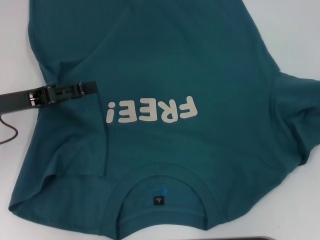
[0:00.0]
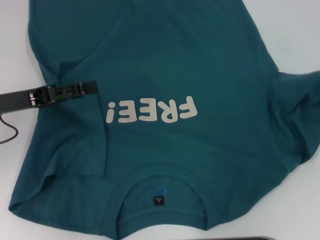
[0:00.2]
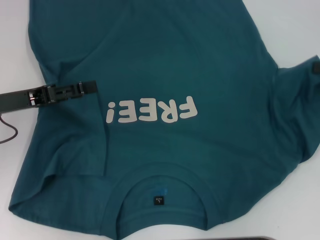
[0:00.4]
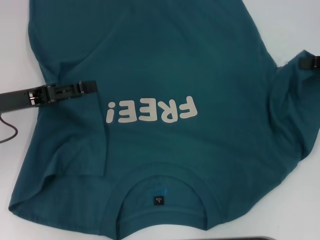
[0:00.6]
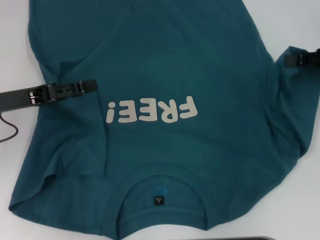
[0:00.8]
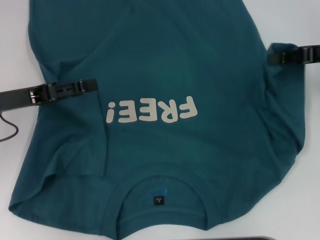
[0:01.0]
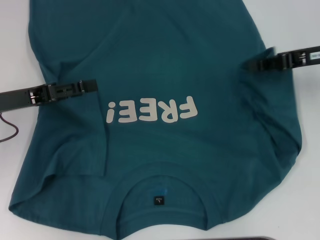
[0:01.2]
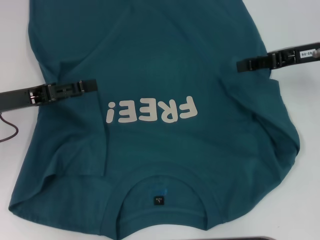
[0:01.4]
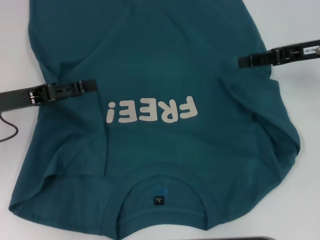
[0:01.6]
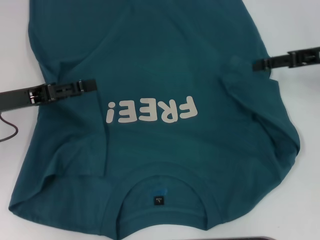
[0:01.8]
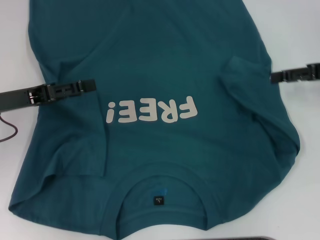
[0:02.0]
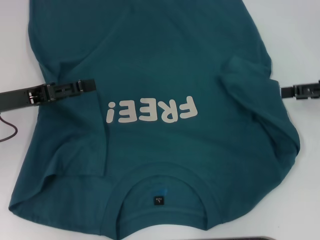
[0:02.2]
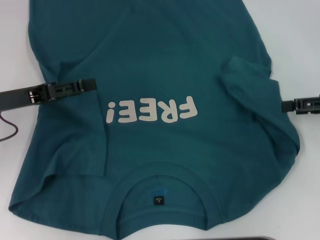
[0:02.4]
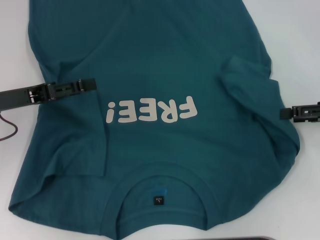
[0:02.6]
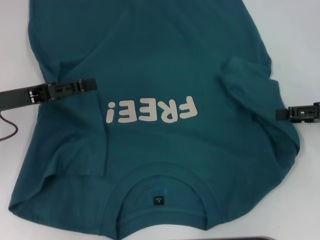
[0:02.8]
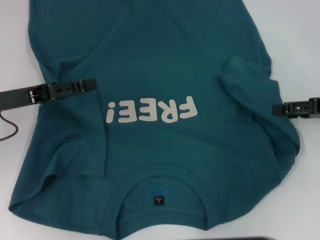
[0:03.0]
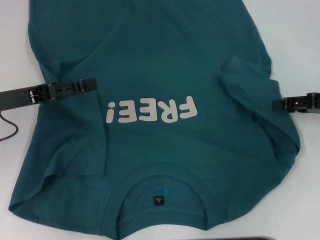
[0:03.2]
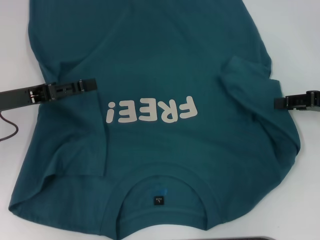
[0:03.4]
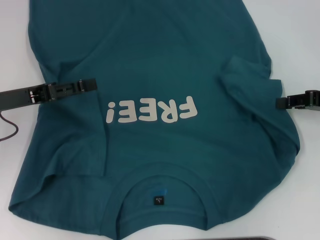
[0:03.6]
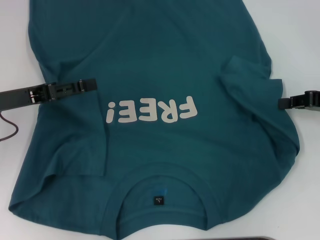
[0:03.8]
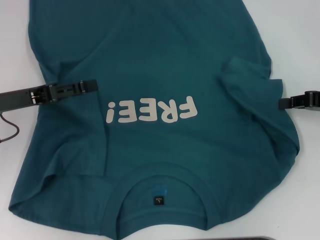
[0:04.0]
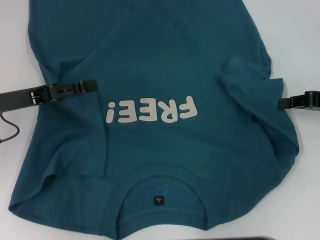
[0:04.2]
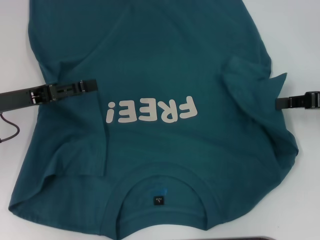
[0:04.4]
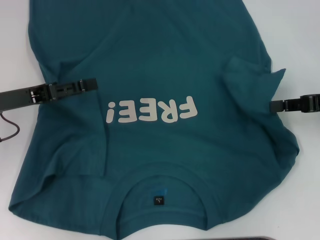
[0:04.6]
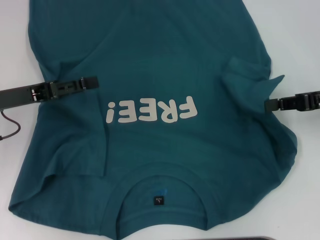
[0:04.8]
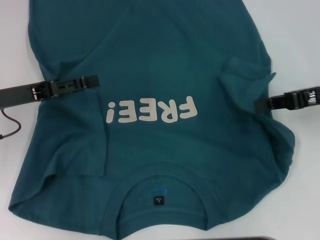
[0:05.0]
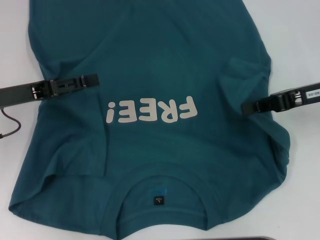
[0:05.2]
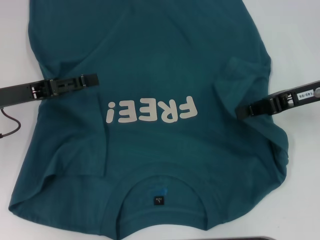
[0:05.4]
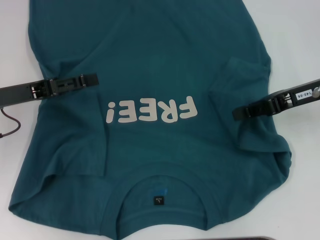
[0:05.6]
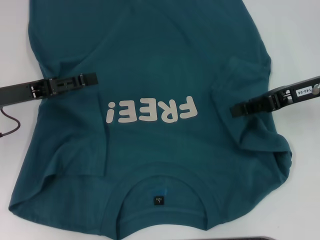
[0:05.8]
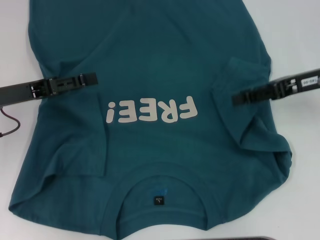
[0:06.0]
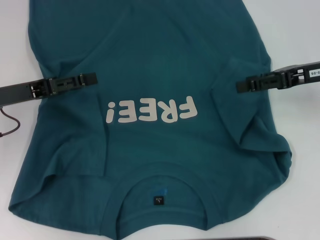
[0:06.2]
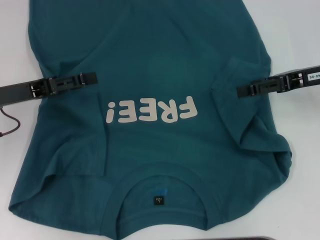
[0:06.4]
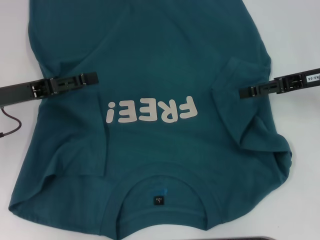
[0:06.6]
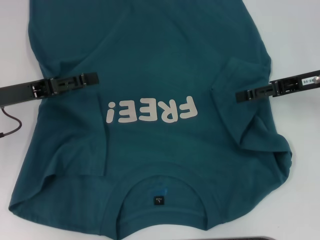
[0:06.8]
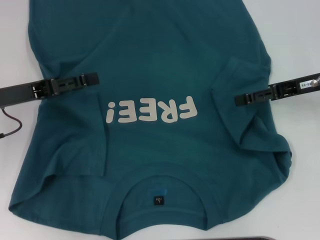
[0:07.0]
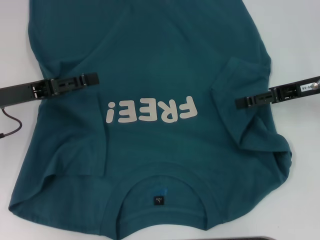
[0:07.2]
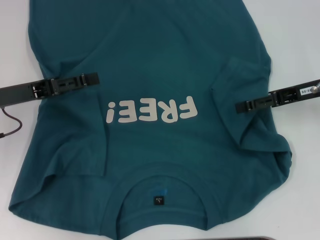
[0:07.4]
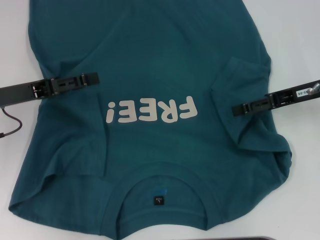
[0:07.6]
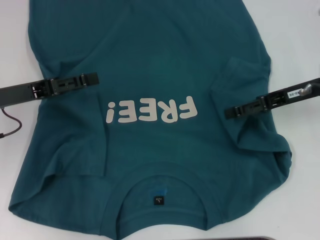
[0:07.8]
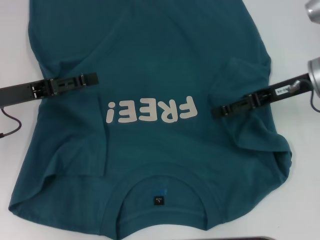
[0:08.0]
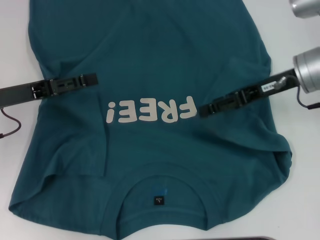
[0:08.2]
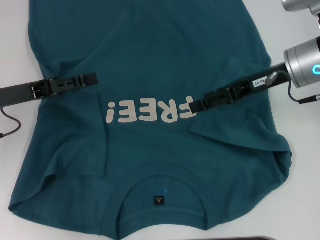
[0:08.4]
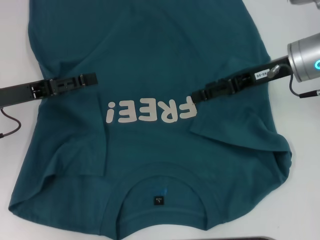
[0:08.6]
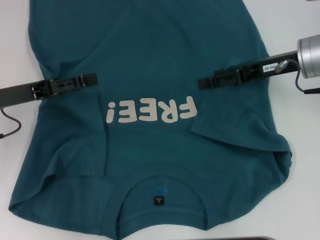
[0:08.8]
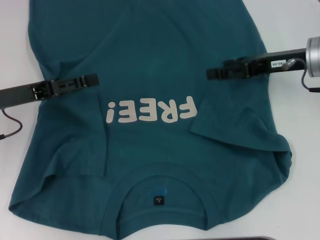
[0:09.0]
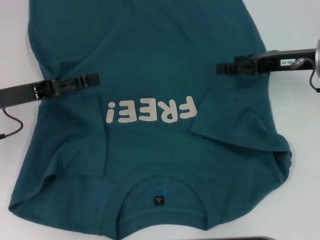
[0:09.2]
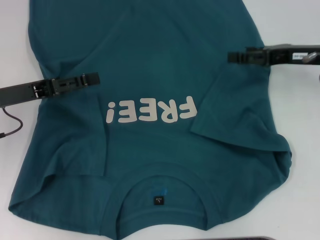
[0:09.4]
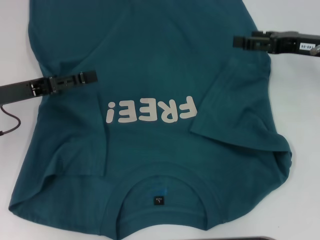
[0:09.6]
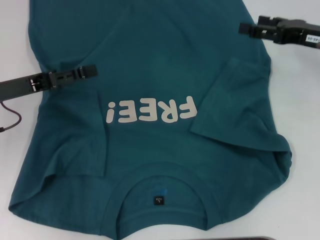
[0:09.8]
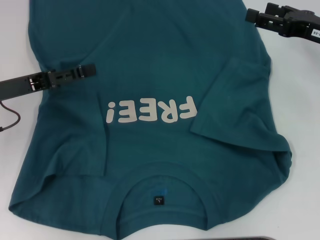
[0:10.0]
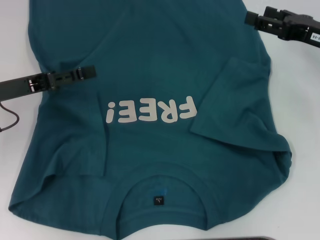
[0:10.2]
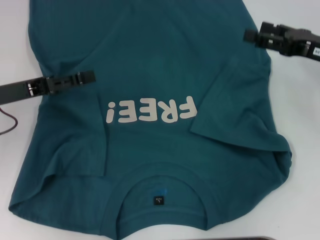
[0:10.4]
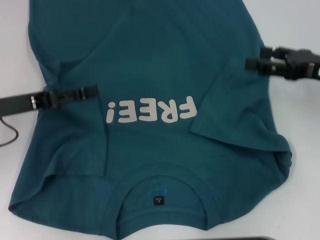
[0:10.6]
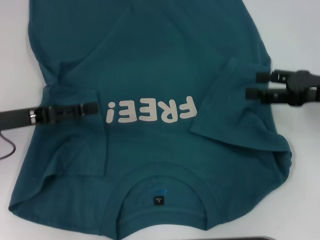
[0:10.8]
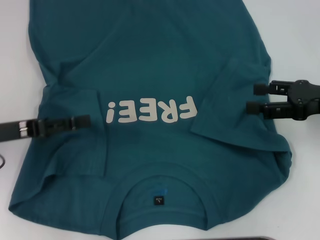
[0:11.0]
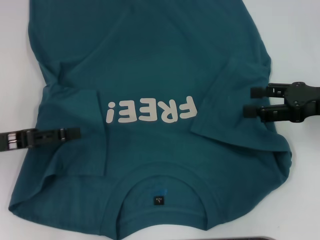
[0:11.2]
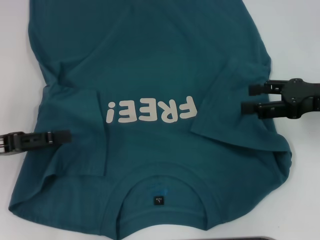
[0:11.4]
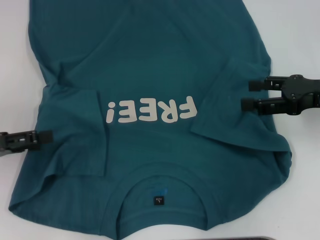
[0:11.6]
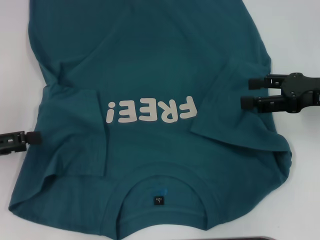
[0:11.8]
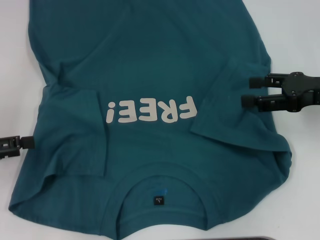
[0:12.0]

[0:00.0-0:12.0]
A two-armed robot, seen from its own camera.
Step, 0:00.0 to 0:09.0: Fold the bottom right sleeve to the right.
0:00.0 to 0:01.6: The right gripper moves to the left and forward, some 15 cm.
0:01.6 to 0:03.0: The right gripper shifts about 10 cm backward, to the right and downward, and opens its fingers.
0:03.0 to 0:04.4: The right gripper closes.
0:04.4 to 0:06.0: The right gripper travels to the left by approximately 5 cm, and opens.
0:06.0 to 0:07.6: The right gripper opens up.
0:09.0 to 0:10.4: The right gripper moves some 5 cm.
0:10.4 to 0:12.0: The left gripper travels to the left and backward by some 10 cm.

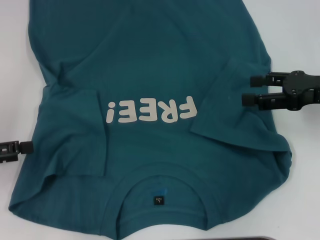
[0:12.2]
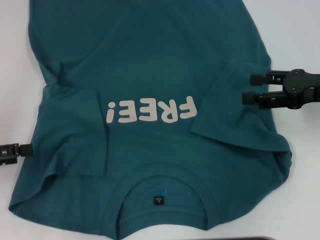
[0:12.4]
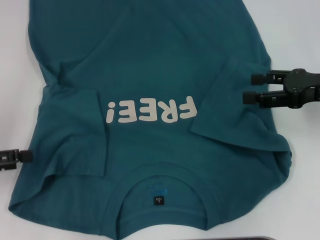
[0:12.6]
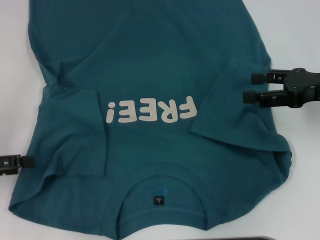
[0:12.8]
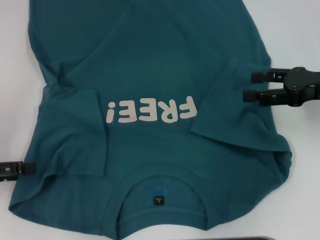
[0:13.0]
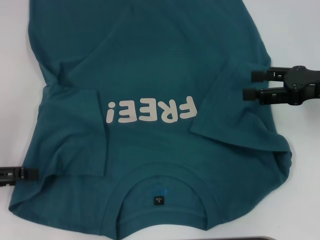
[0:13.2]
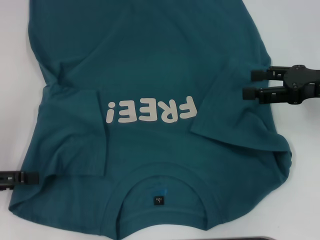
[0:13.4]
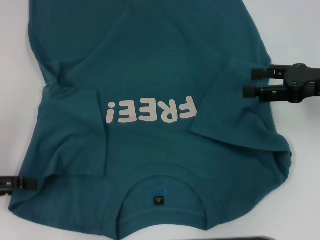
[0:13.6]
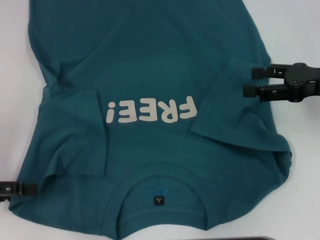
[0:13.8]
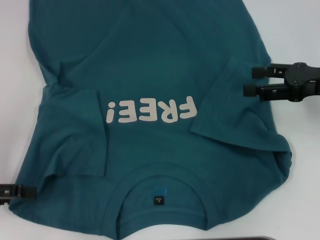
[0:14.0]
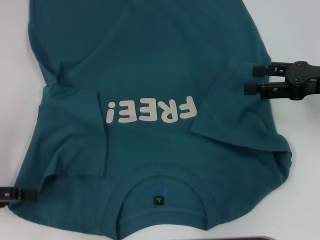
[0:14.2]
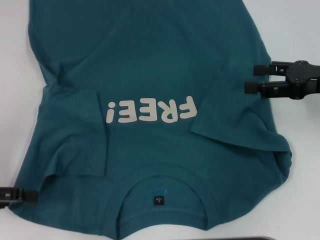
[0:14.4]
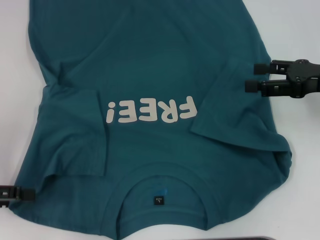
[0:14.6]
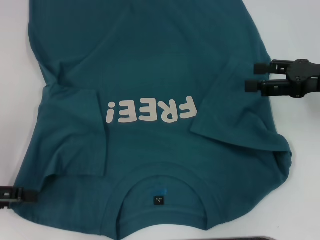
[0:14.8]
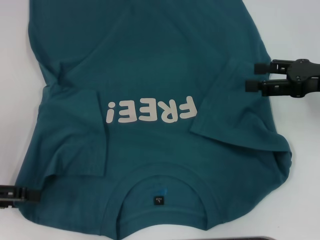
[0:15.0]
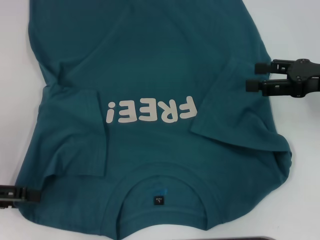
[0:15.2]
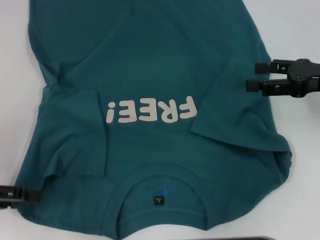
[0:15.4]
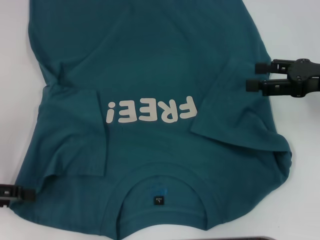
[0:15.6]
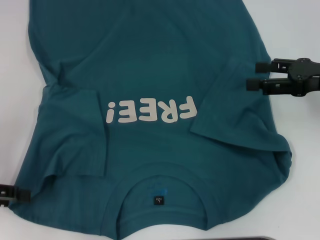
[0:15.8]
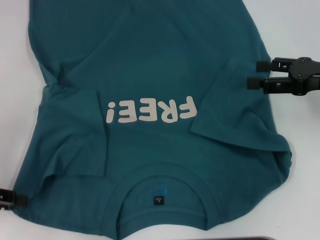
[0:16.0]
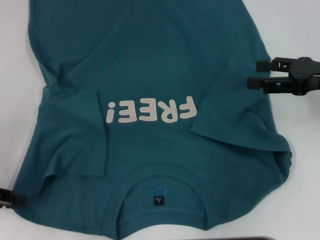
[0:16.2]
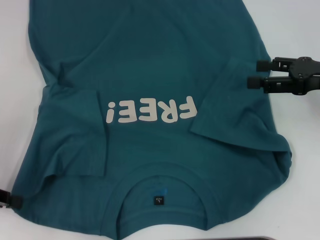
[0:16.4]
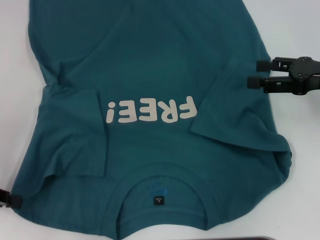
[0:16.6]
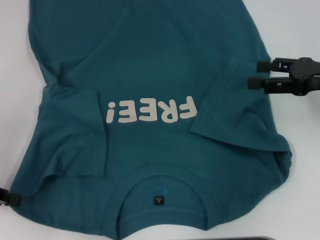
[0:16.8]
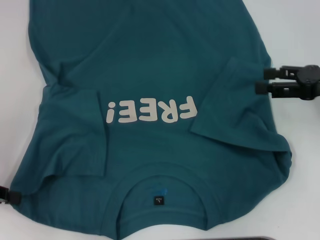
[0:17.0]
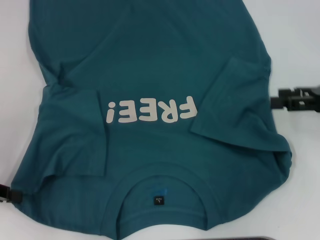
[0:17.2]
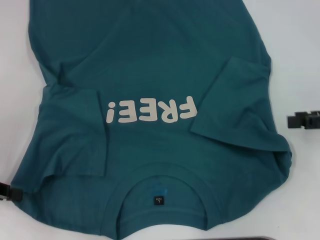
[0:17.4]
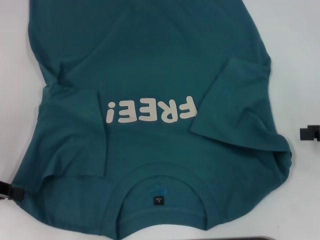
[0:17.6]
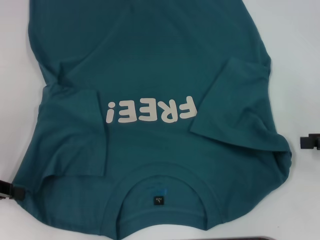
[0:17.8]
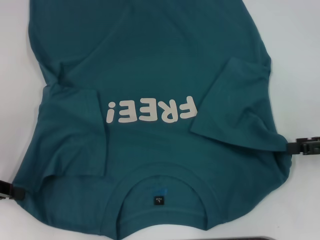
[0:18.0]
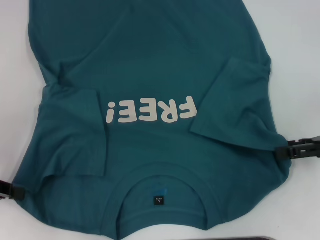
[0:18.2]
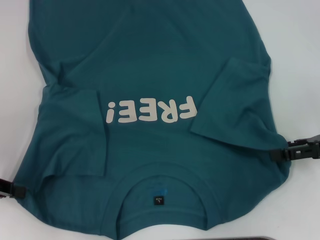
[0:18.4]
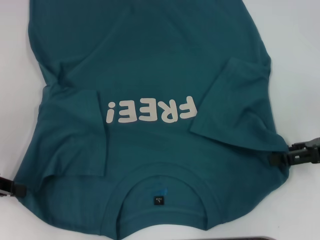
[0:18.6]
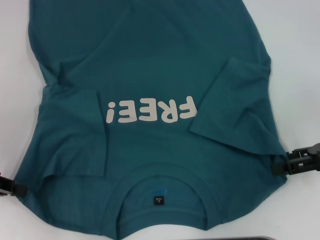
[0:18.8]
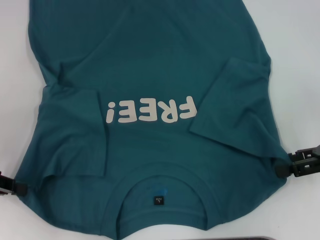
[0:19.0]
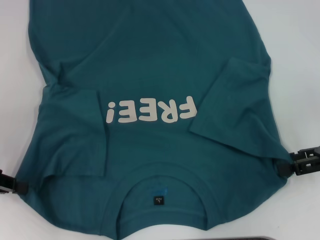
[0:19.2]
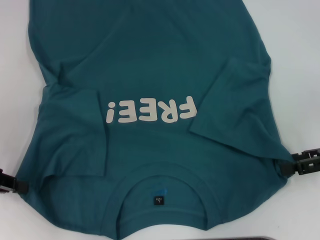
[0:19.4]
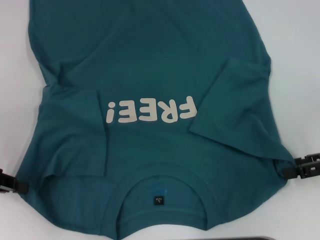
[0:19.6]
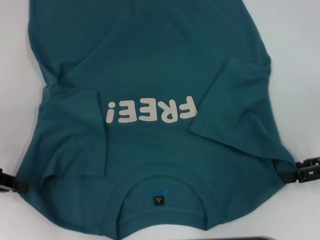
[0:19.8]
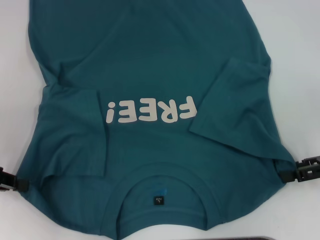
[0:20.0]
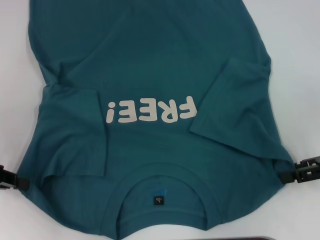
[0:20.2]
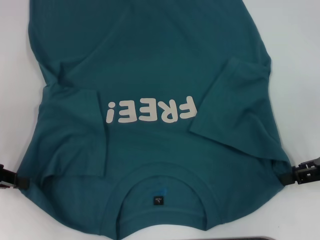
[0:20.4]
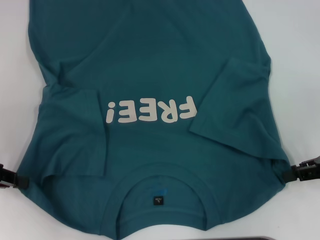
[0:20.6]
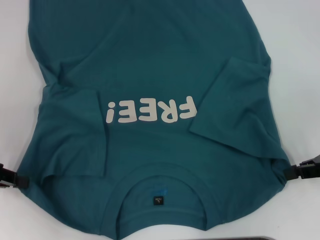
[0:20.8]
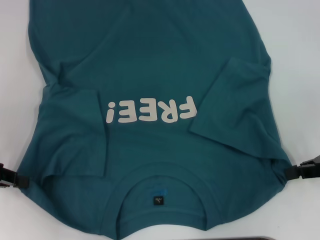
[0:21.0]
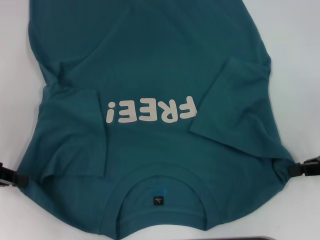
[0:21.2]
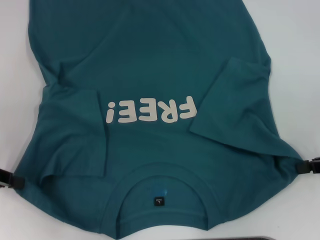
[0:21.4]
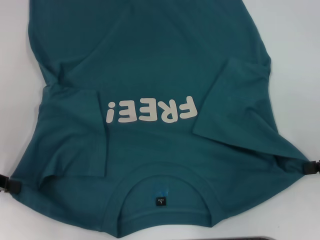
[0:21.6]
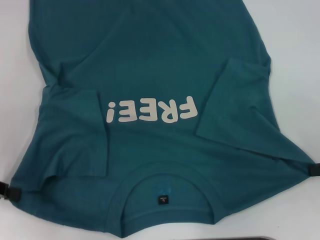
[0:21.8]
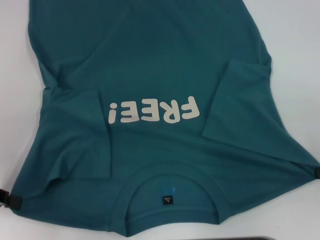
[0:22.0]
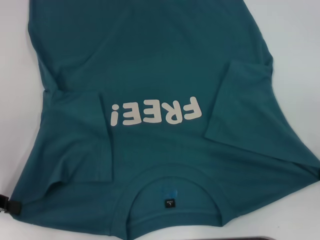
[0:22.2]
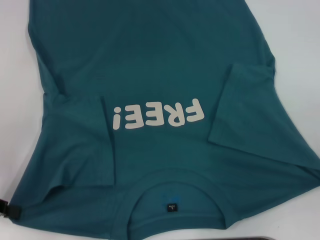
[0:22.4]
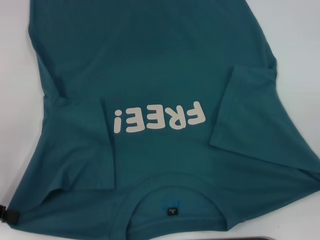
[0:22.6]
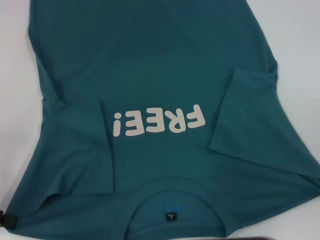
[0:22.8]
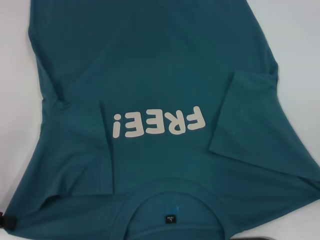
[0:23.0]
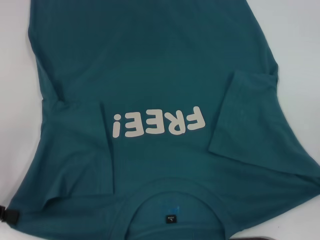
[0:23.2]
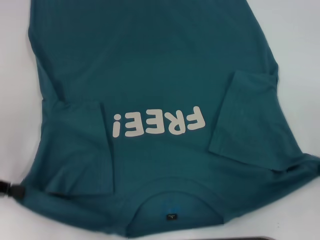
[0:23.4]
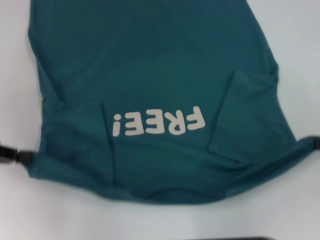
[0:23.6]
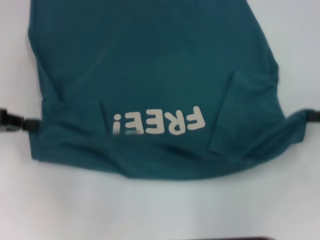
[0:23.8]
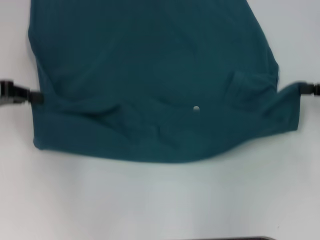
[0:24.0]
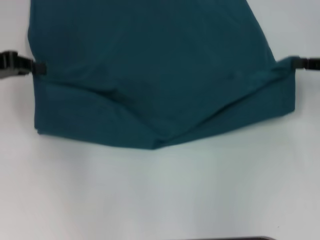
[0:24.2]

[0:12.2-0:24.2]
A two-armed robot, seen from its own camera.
Step, 0:12.2 to 0:17.0: Grab the bottom left corner with your left hand.
Step, 0:17.2 to 0:21.4: Grab the bottom right corner with your right hand.
0:12.2 to 0:13.8: The grippers move only a little.
0:13.8 to 0:15.2: Neither gripper changes place.
0:16.6 to 0:18.2: The right gripper is displaced backward by approximately 5 cm.
0:18.2 to 0:19.8: There are only small adjustments of the grippers.
0:19.8 to 0:21.2: The right gripper closes.
0:21.2 to 0:22.6: The right gripper travels backward and to the right by about 10 cm.
0:22.6 to 0:24.2: The left gripper is displaced forward and upward by approximately 15 cm, while the right gripper goes roughly 15 cm forward.
